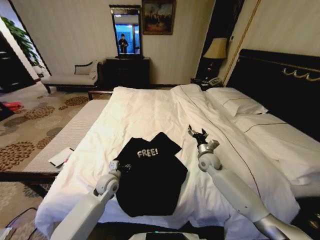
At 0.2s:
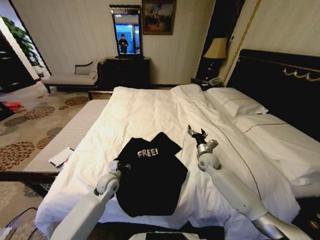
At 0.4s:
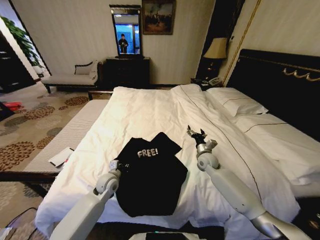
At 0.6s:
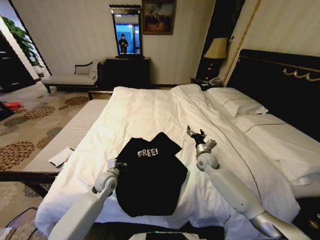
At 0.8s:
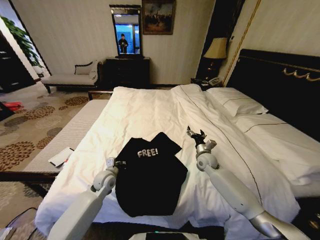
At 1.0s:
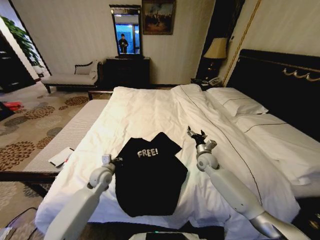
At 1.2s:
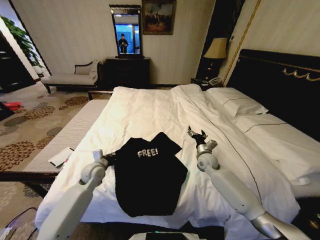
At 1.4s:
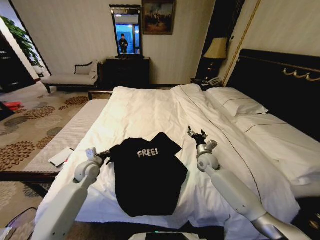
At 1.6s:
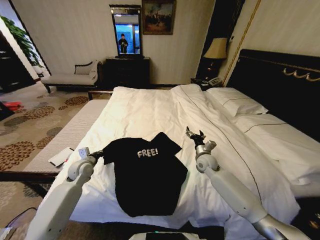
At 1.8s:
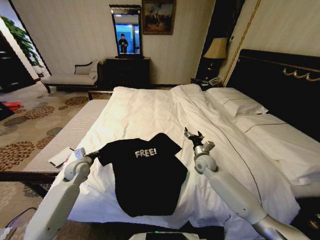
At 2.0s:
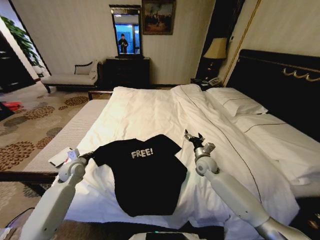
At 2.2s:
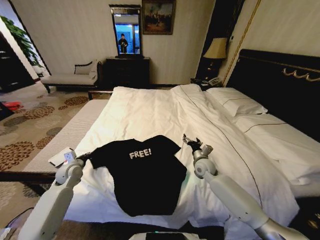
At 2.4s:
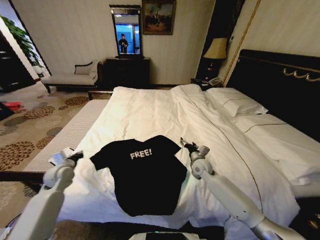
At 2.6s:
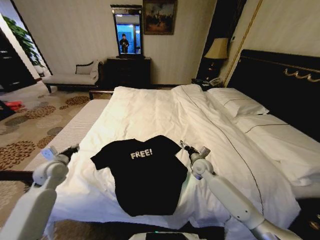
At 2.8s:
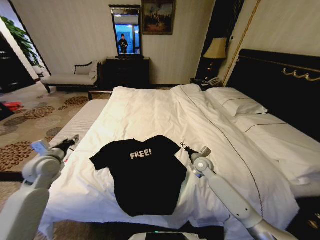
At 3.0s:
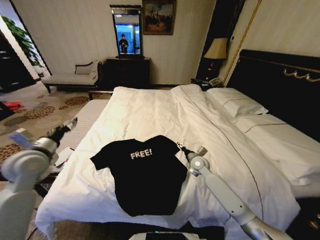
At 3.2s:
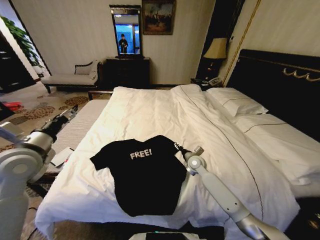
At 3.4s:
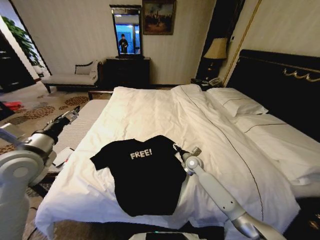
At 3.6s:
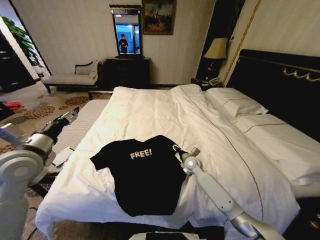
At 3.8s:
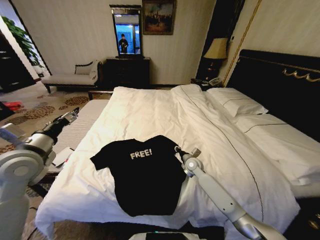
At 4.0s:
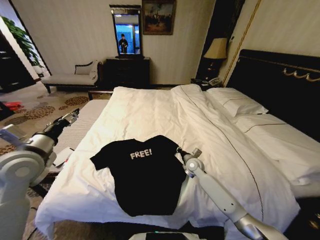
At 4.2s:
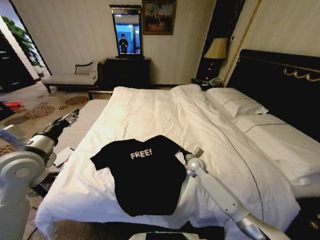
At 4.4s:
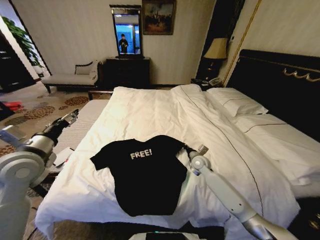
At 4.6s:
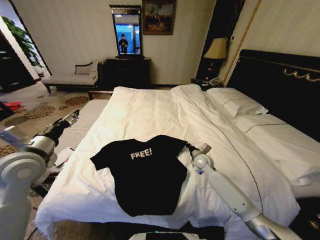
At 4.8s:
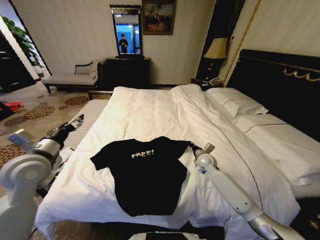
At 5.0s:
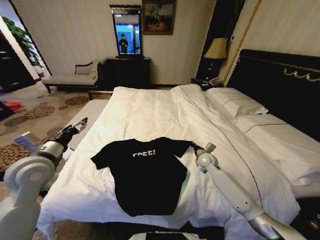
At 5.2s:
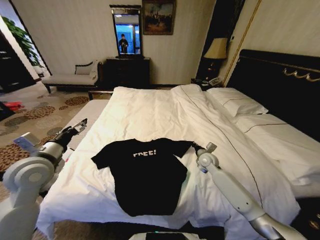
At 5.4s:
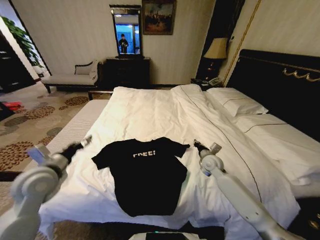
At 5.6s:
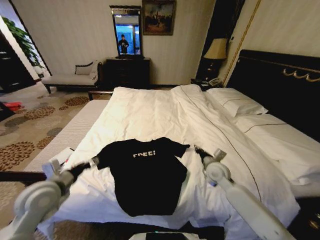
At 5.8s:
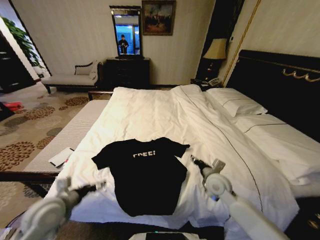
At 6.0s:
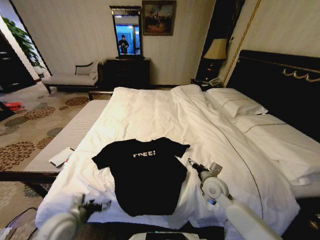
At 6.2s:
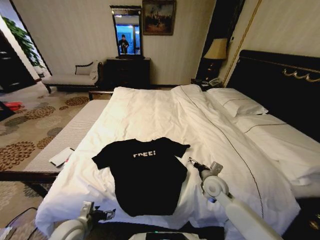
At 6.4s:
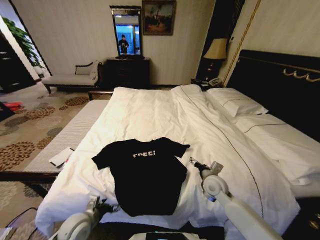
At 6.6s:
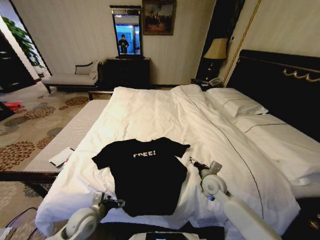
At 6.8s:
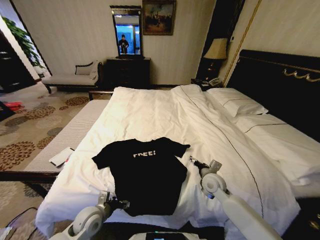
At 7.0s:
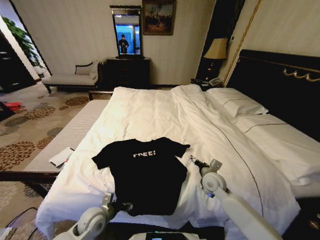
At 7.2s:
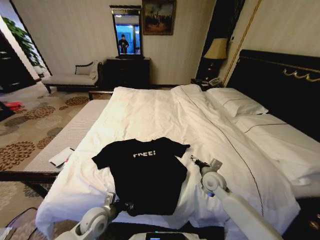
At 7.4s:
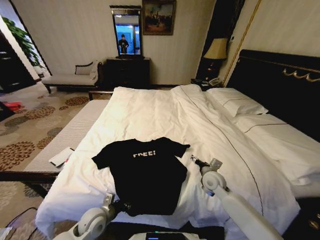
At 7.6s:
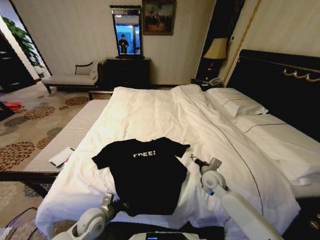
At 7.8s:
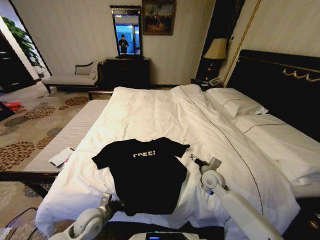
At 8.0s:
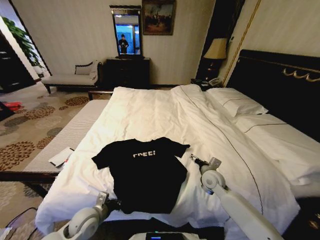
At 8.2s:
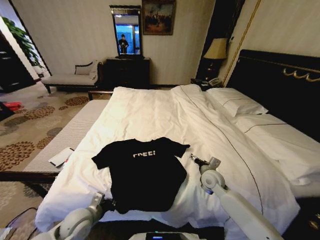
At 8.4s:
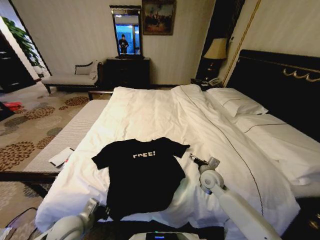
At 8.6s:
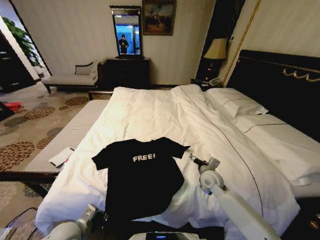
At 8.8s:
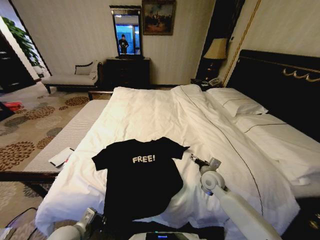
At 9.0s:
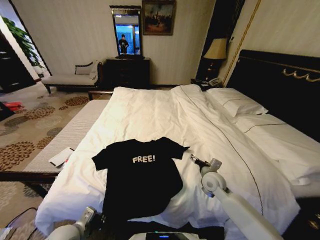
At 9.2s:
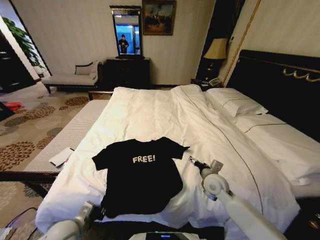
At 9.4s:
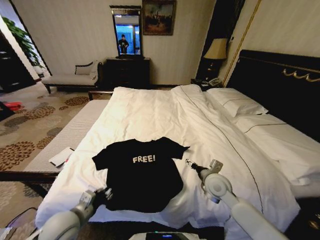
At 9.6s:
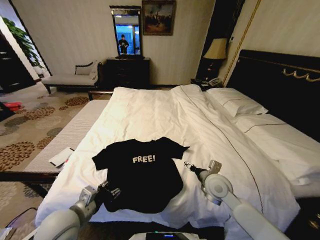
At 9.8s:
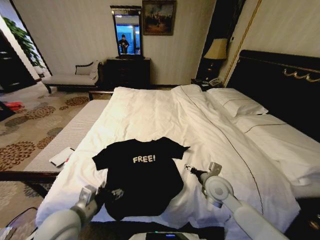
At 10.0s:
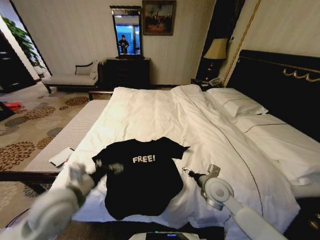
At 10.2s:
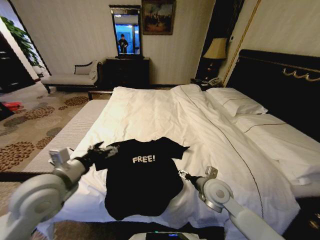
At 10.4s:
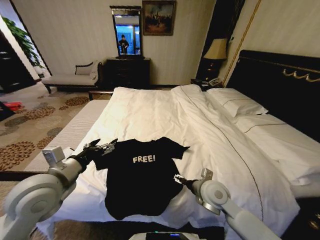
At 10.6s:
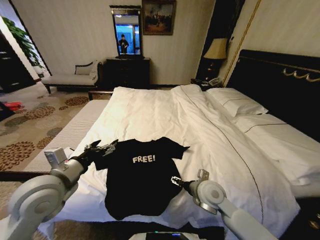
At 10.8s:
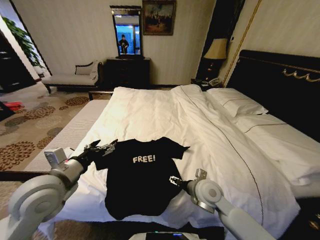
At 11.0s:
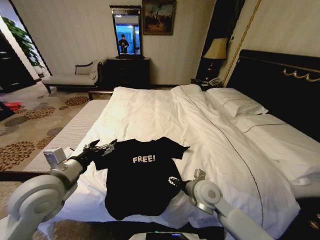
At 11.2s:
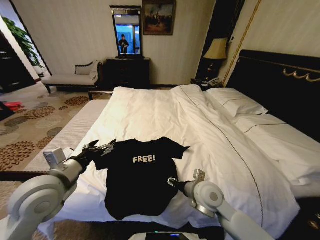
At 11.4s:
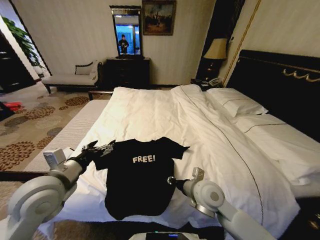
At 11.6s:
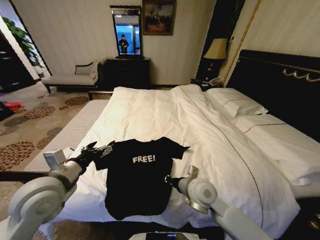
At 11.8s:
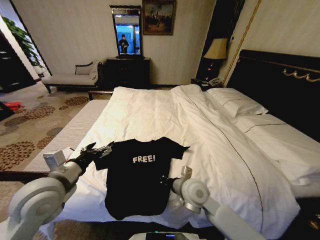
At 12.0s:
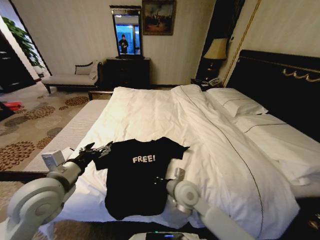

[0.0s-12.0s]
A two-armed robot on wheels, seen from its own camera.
Task of the whole recording: Fold the clothes on the bed.
0.0s to 1.6s: The left gripper moves to the left, approximately 15 cm, and closes up.
1.6s to 3.0s: The left gripper heads upward and backward, covering roughly 20 cm, and opens.
3.0s to 4.4s: The left gripper changes place by about 5 cm; the right gripper closes.
4.4s to 6.0s: The left gripper heads downward and backward, covering some 25 cm. The right gripper moves backward, roughly 15 cm, and opens.
6.0s to 7.6s: The left gripper is displaced downward and to the right by some 10 cm, and closes up.
7.6s to 9.0s: The left gripper shifts roughly 10 cm backward and to the left.
9.0s to 10.4s: The right gripper goes some 10 cm backward, upward and to the left. Meanwhile the left gripper heads upward, covering approximately 20 cm, and opens its fingers.
10.4s to 12.0s: The right gripper travels to the left by roughly 10 cm, and closes its fingers.

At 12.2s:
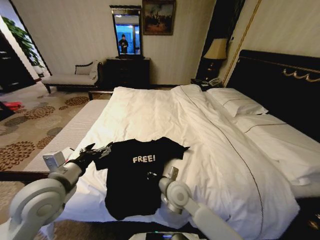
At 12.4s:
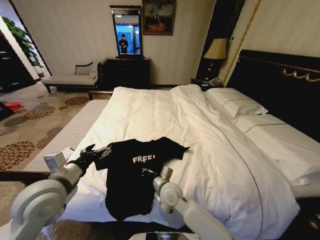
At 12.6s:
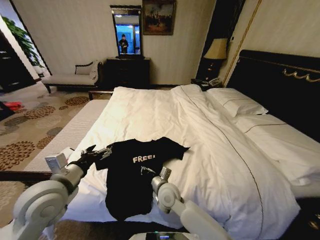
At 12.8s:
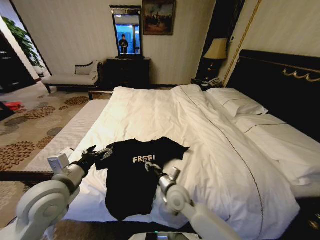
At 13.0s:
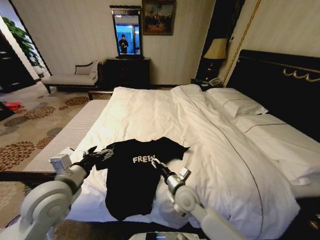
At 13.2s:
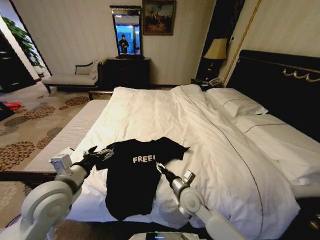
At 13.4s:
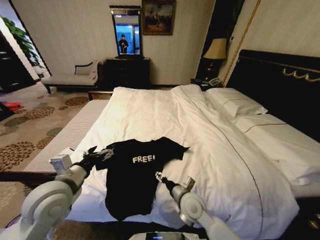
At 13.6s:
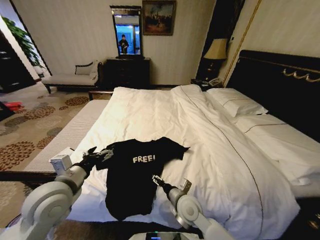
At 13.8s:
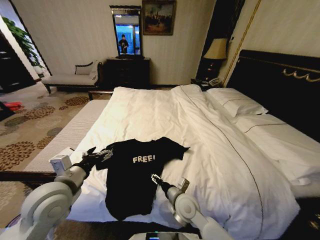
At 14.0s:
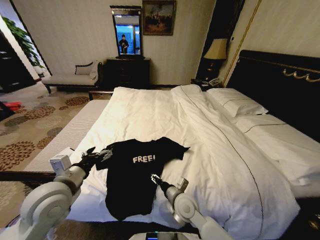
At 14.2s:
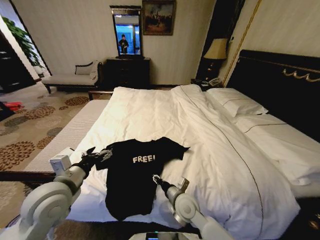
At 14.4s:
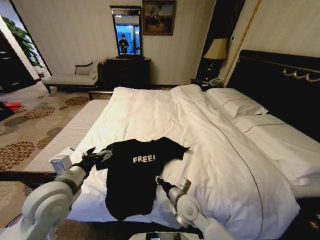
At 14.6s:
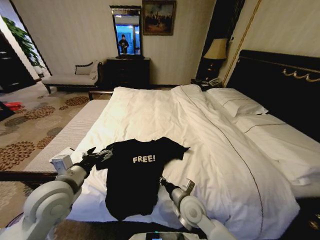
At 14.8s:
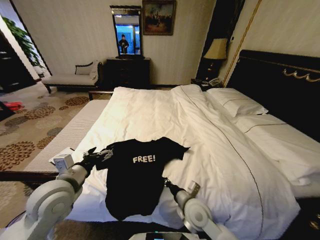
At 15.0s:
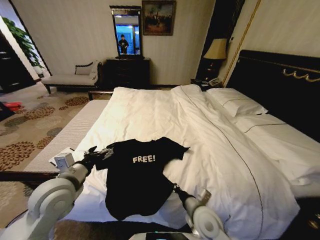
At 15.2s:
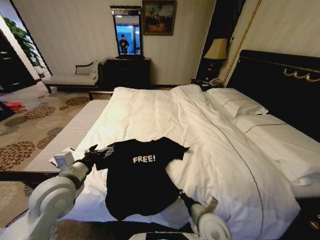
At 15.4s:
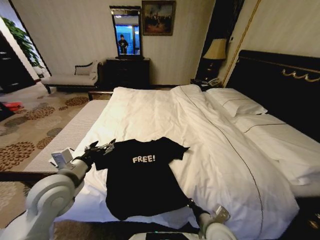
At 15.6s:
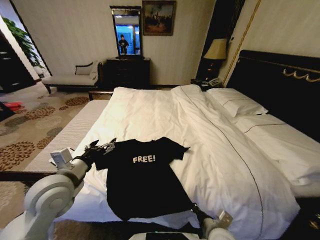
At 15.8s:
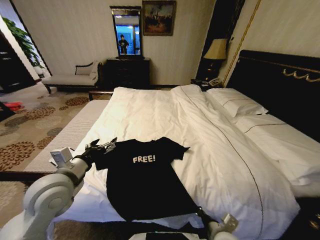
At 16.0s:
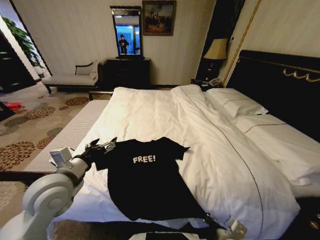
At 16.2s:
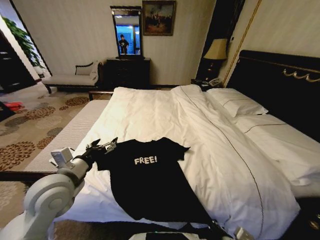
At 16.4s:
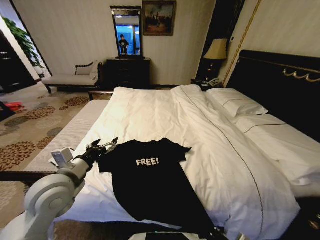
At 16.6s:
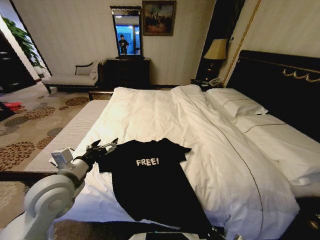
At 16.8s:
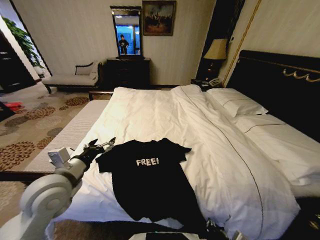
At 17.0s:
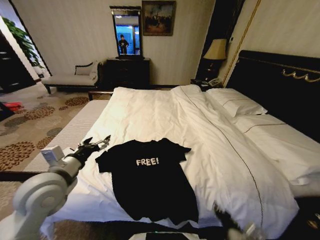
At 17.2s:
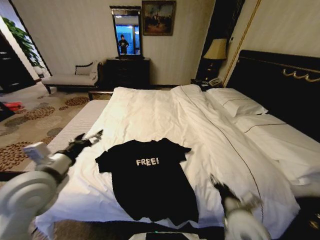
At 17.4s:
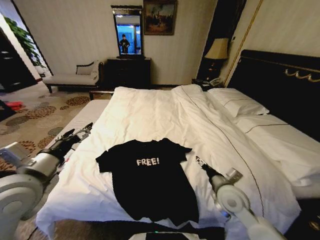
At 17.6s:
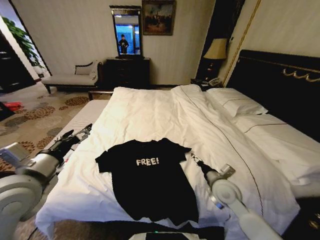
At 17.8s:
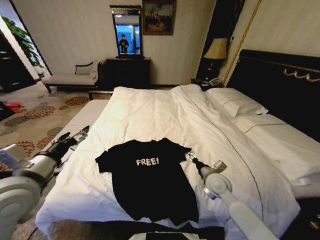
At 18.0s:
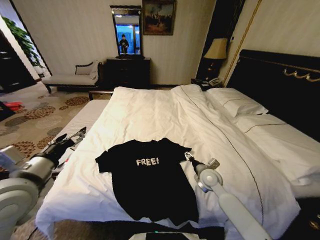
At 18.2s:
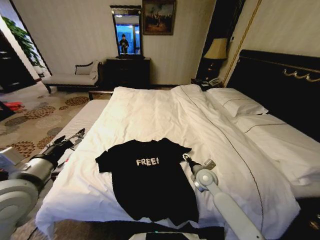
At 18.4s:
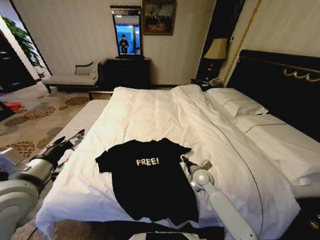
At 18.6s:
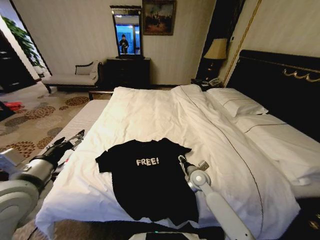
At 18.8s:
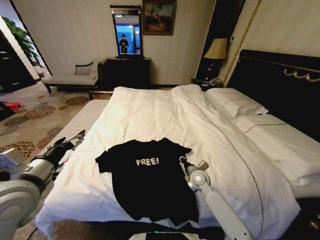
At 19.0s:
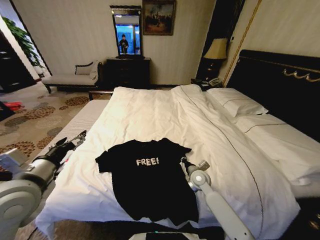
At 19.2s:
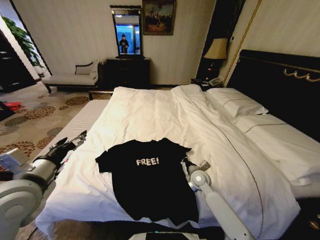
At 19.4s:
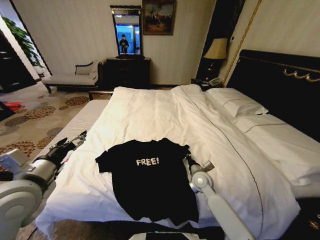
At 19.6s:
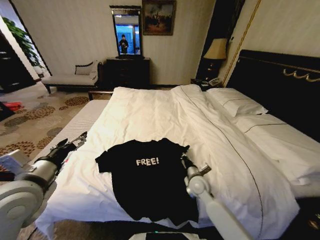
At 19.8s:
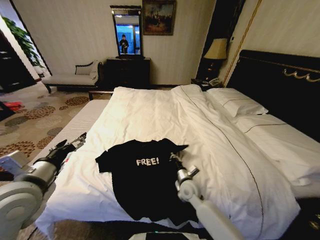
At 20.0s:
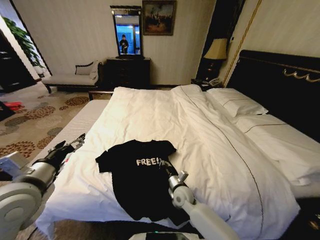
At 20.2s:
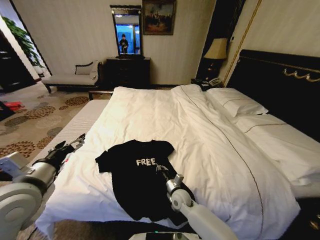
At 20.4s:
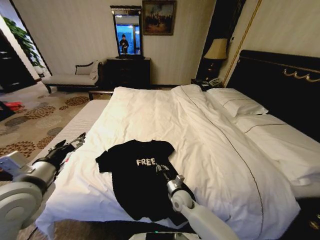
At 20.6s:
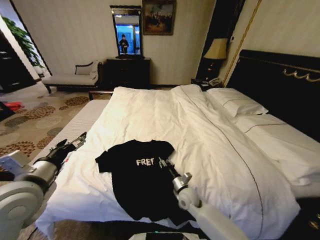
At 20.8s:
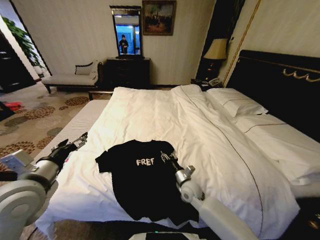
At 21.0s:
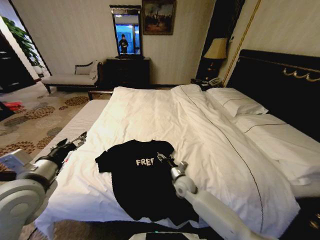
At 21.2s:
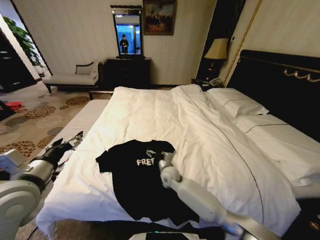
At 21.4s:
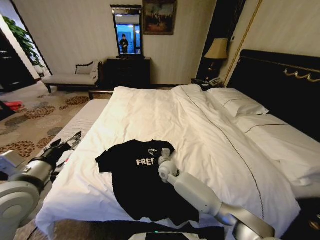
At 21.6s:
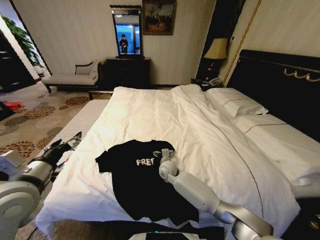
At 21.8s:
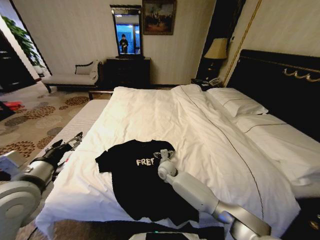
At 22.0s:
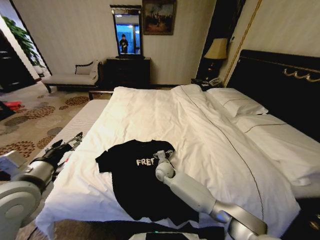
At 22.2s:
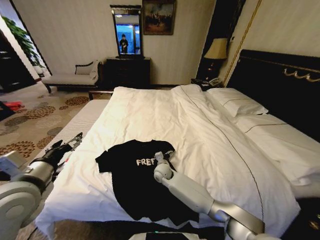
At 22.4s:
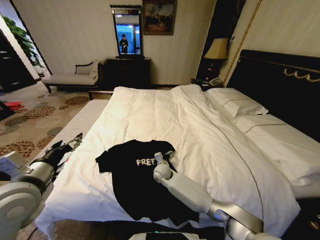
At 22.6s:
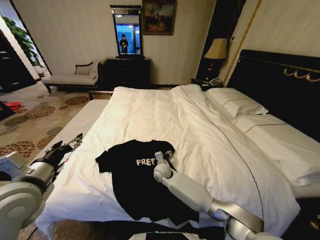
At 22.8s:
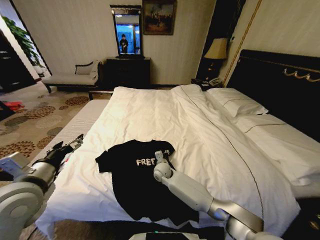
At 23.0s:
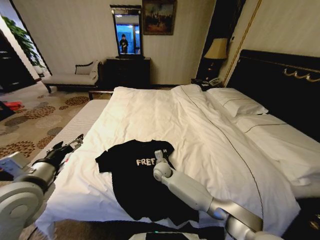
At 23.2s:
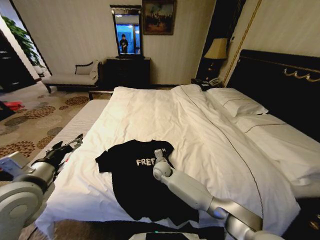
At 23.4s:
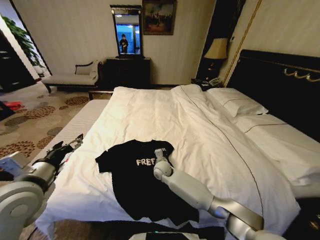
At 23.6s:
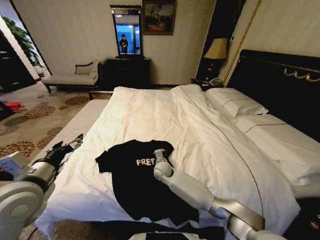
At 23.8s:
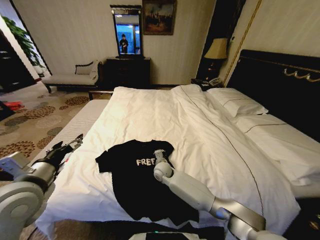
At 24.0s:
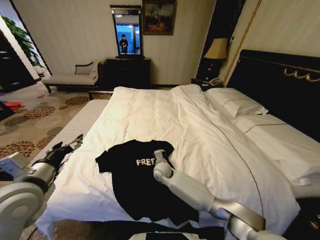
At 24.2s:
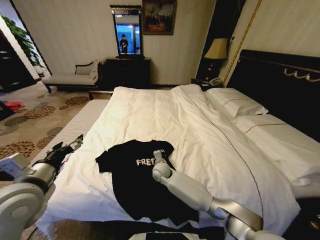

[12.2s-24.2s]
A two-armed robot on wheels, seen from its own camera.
Task of the whole recording: Fold the clothes on the bed.
12.2s to 13.8s: The right gripper shifts by about 5 cm, and opens its fingers.
13.8s to 15.2s: The right gripper moves backward and to the right, approximately 10 cm, and closes.
15.2s to 16.6s: The right gripper goes approximately 10 cm backward.
16.6s to 18.2s: The right gripper is displaced forward by about 30 cm, and opens up; the left gripper heads to the left, covering some 5 cm.
18.2s to 19.8s: The right gripper travels to the left by roughly 5 cm, and closes up.
19.8s to 21.2s: The right gripper goes left and right, roughly 10 cm each way, reversing 2 times, and opens.
21.2s to 22.6s: The right gripper shifts by some 5 cm.
22.6s to 24.2s: The right gripper closes up.
